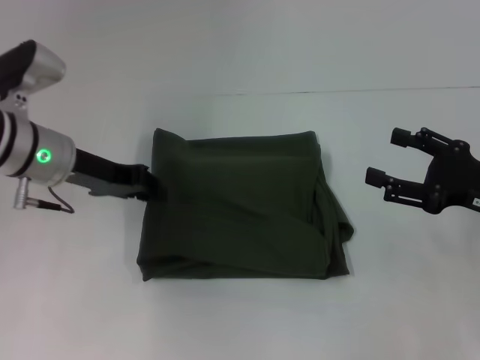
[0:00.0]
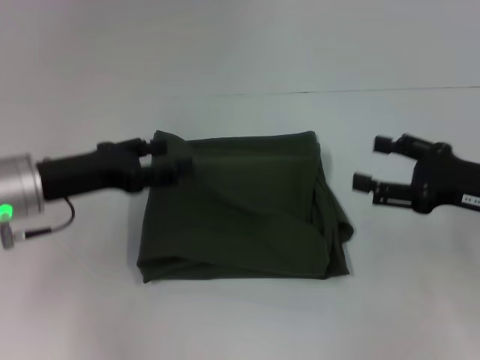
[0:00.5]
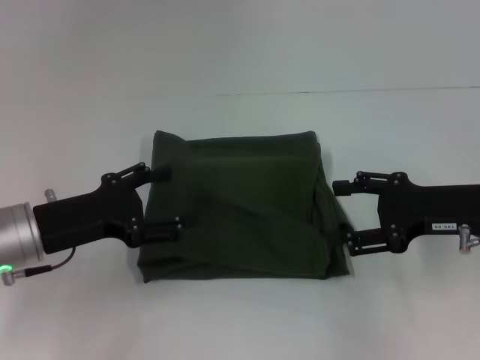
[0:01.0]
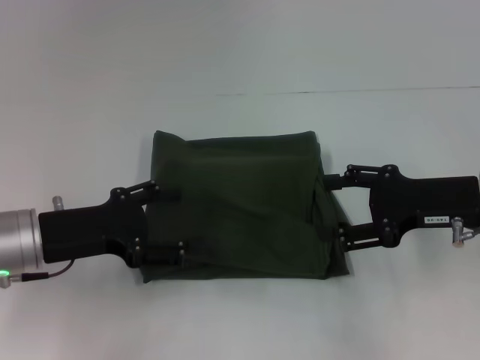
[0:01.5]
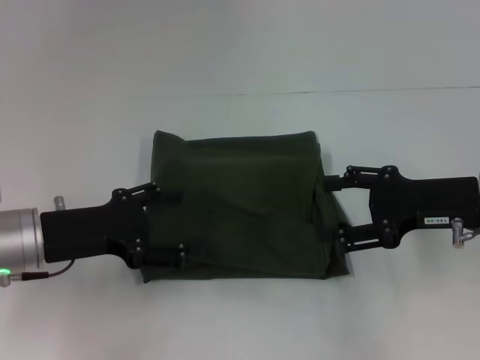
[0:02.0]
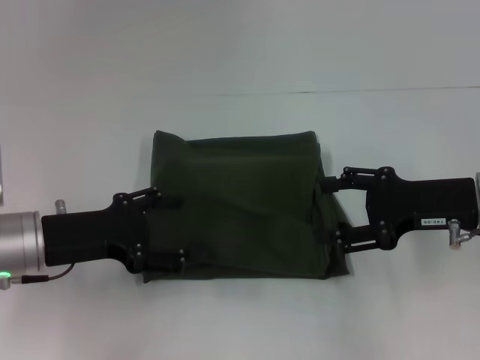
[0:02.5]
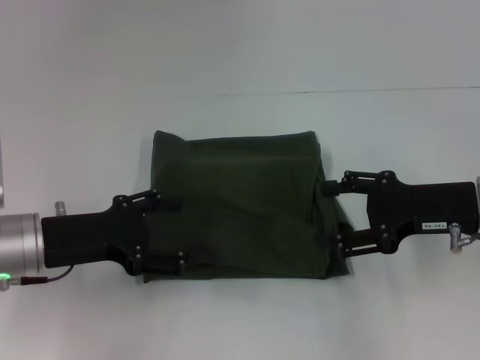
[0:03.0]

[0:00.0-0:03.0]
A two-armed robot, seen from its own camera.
0:00.0 to 0:01.5: The right gripper changes place by approximately 5 cm, while the left gripper goes about 10 cm backward, and opens up.
0:01.5 to 0:03.0: Both grippers stay about where they are.

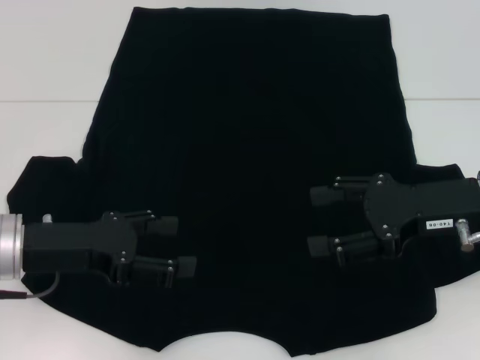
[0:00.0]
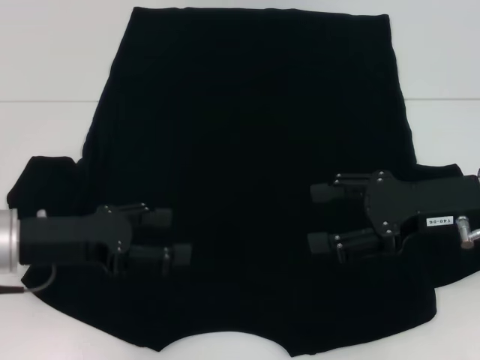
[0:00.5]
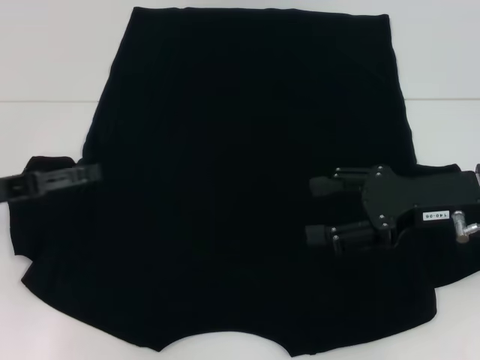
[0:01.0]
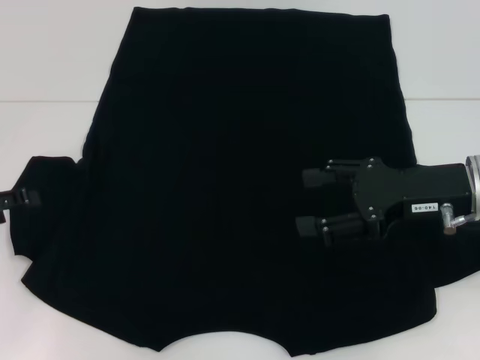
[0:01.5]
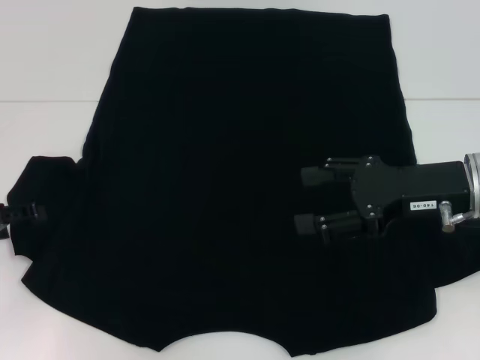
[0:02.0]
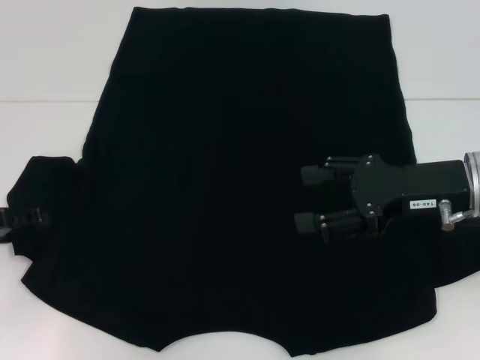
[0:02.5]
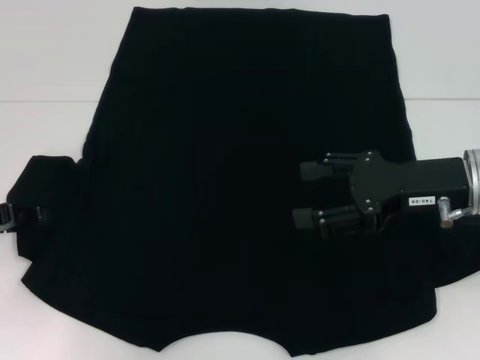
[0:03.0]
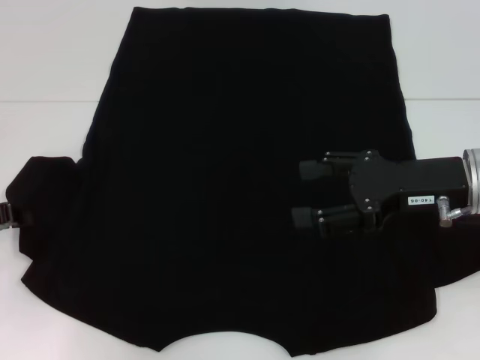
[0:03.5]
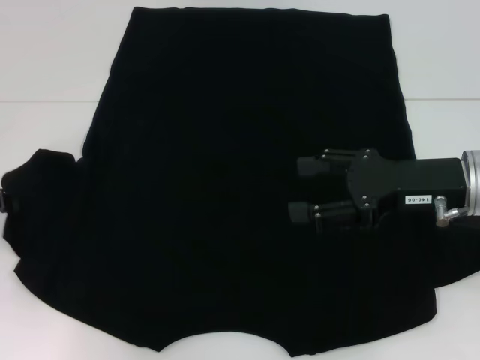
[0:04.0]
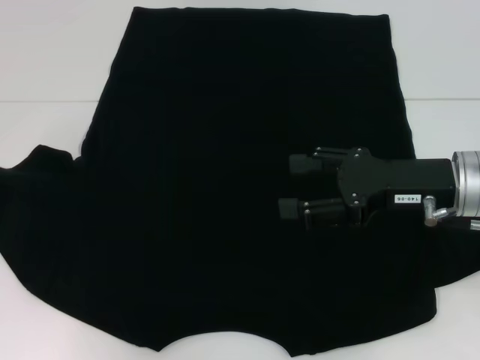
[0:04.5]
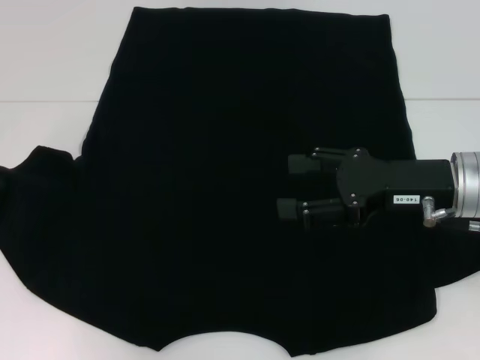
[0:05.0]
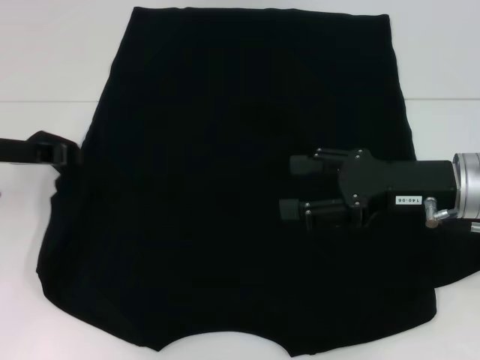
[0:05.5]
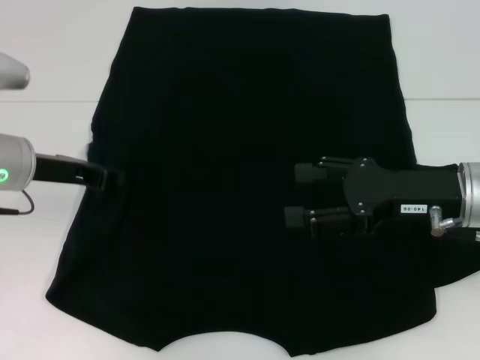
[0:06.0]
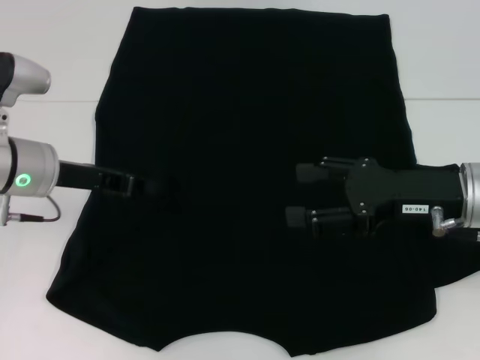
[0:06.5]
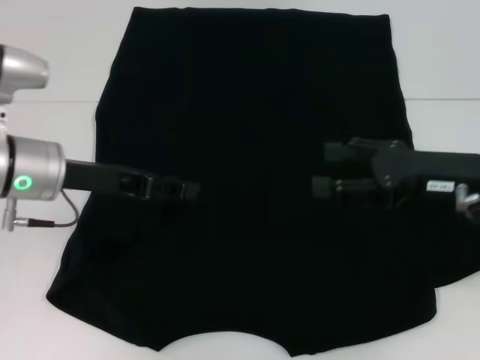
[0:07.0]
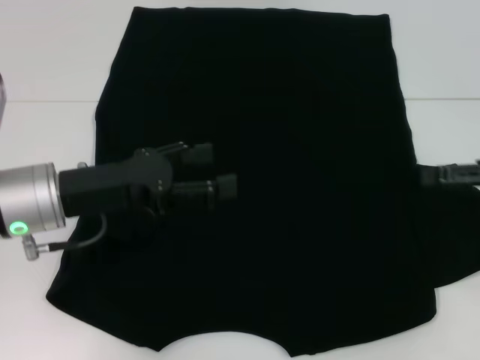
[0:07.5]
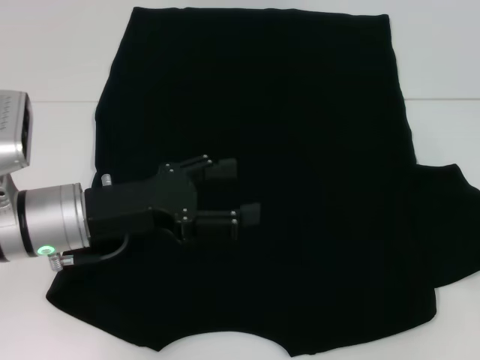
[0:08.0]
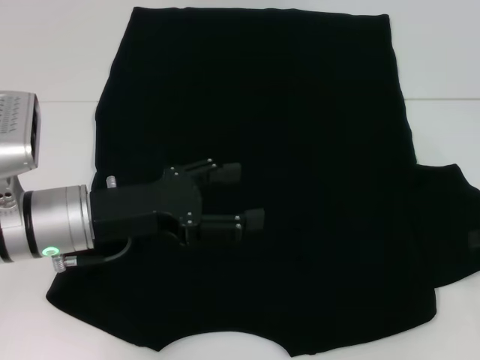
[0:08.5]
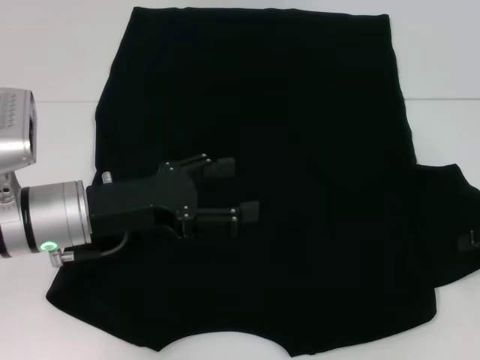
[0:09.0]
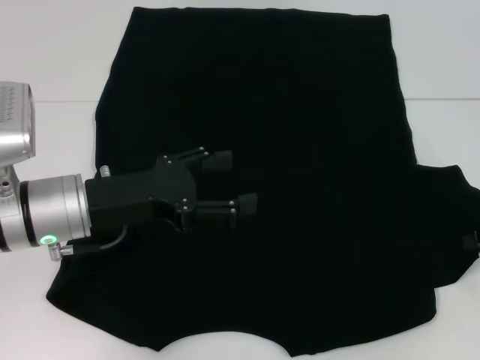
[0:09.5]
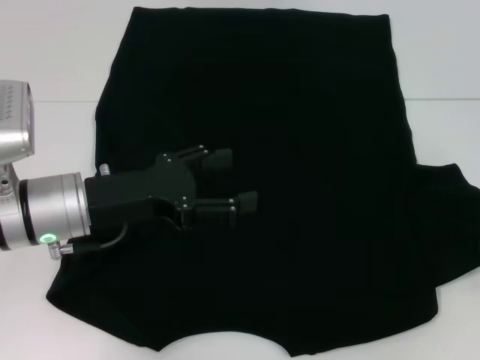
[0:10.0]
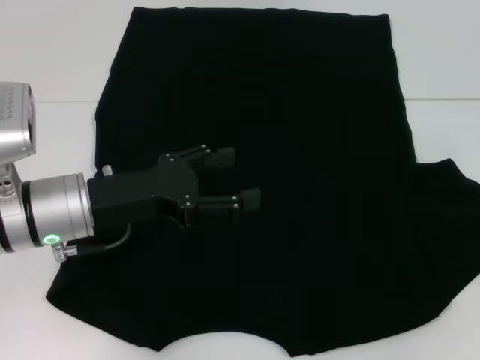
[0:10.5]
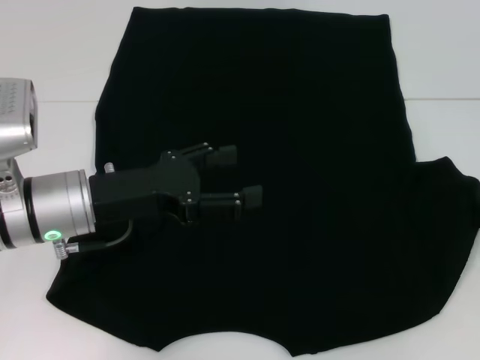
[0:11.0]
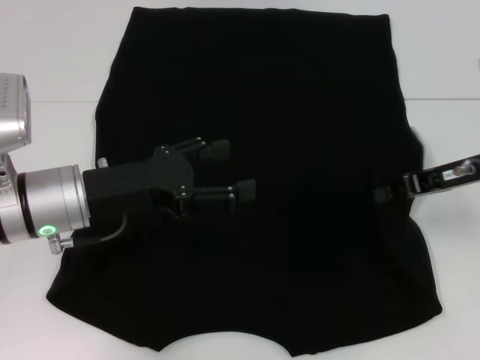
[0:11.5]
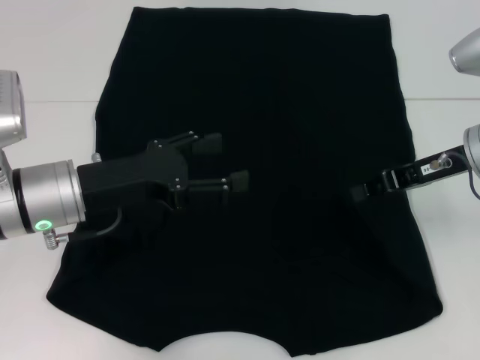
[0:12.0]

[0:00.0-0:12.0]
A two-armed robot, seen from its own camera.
Step, 0:00.0 to 0:06.0: Fold the bottom left sleeve with your left hand.
0:00.0 to 0:02.0: The left gripper shifts about 10 cm to the left.
0:02.0 to 0:04.0: The left gripper closes up.
0:04.0 to 0:06.0: The left gripper goes some 10 cm to the right.
0:06.0 to 0:08.0: The right gripper travels to the right by roughly 15 cm; the left gripper travels backward and to the right by about 10 cm, and opens.
0:10.0 to 0:12.0: The right gripper travels to the left and forward by roughly 15 cm.

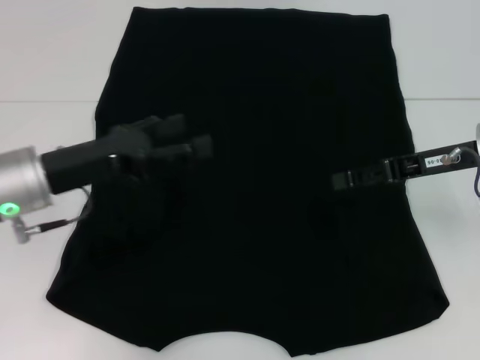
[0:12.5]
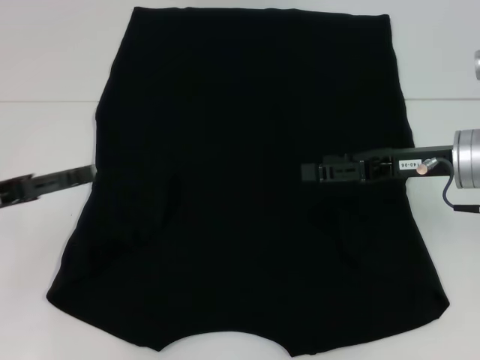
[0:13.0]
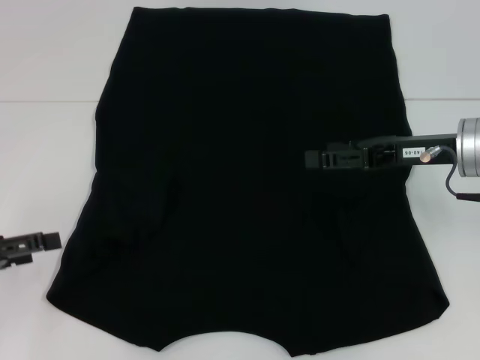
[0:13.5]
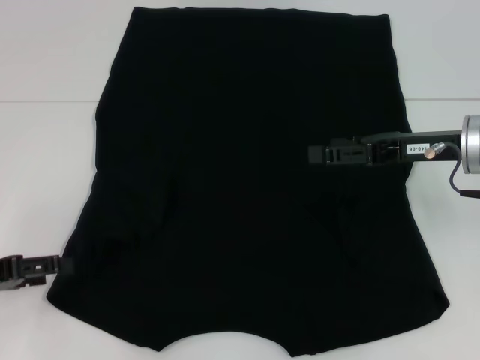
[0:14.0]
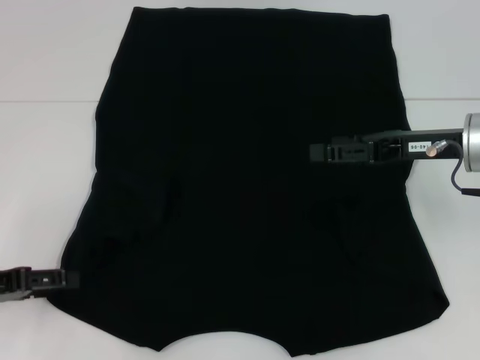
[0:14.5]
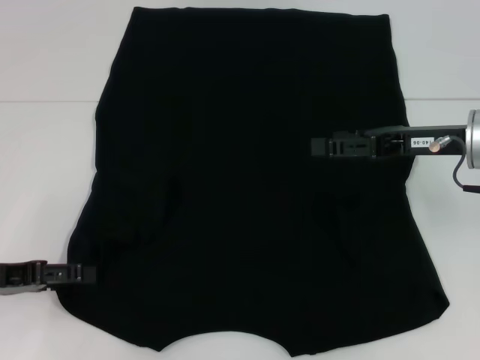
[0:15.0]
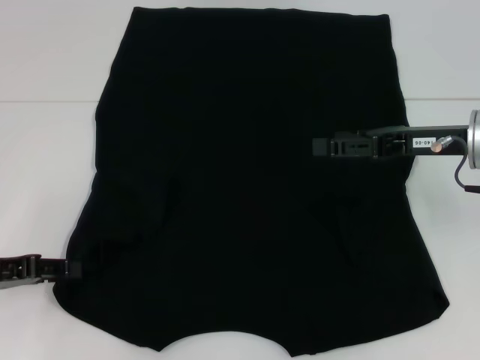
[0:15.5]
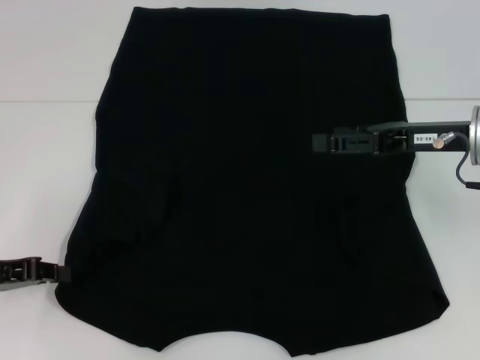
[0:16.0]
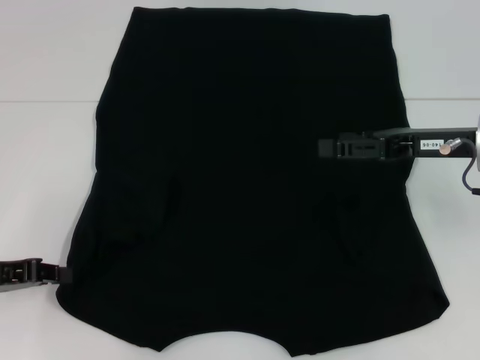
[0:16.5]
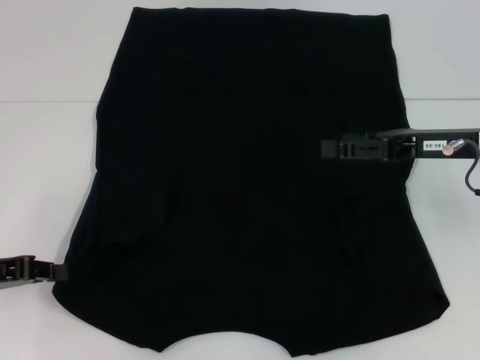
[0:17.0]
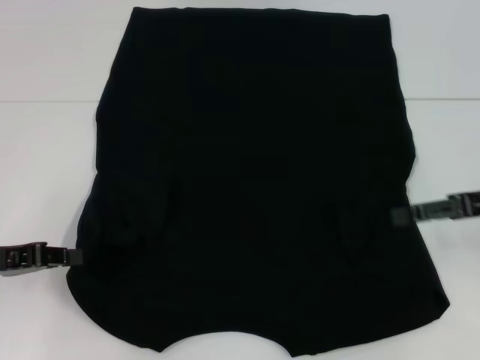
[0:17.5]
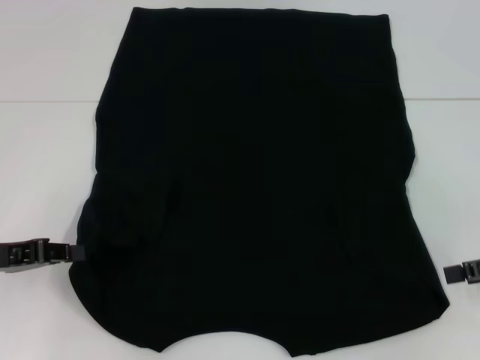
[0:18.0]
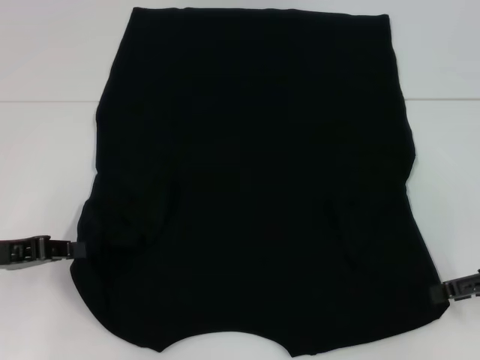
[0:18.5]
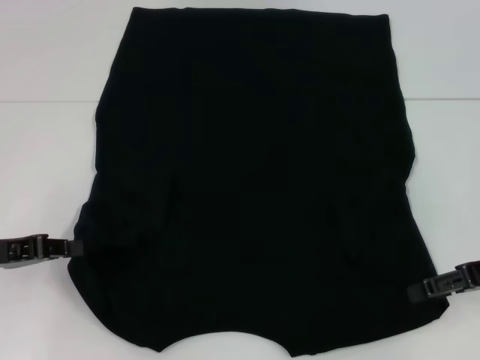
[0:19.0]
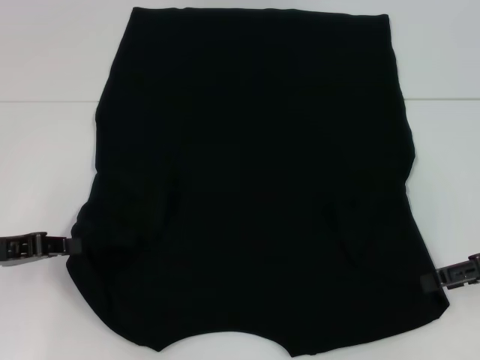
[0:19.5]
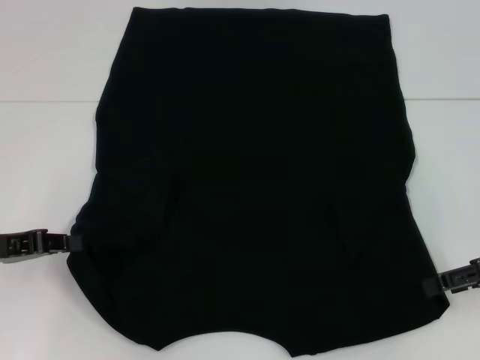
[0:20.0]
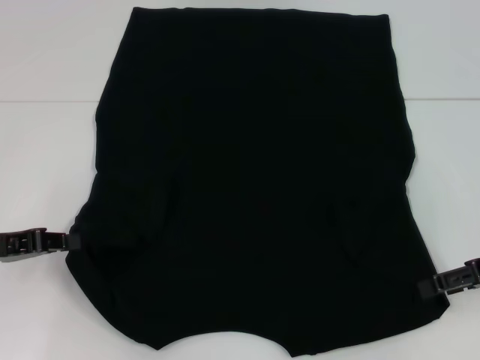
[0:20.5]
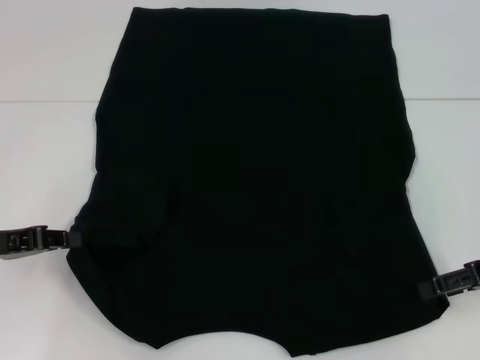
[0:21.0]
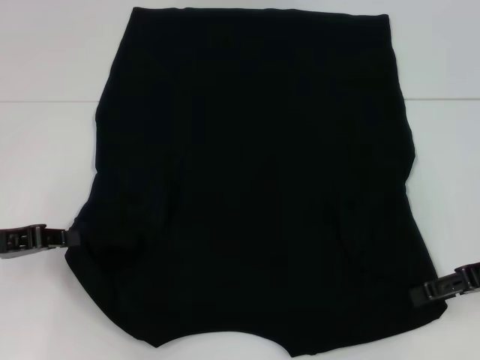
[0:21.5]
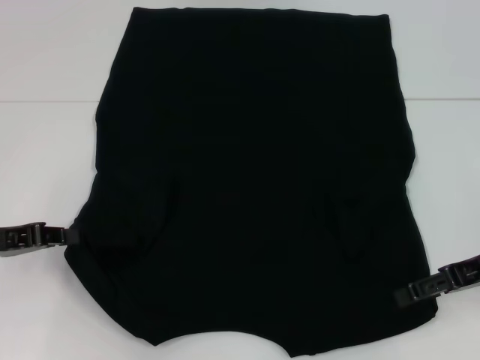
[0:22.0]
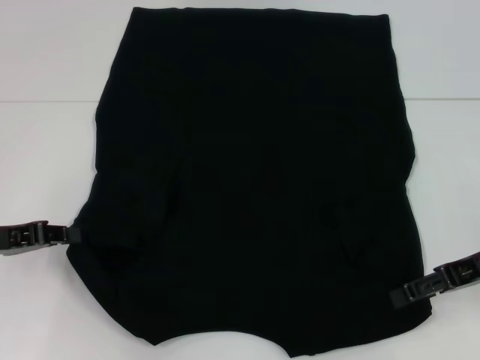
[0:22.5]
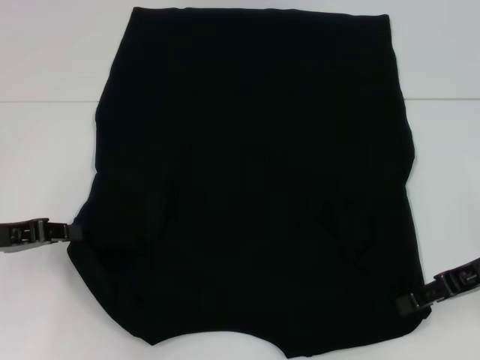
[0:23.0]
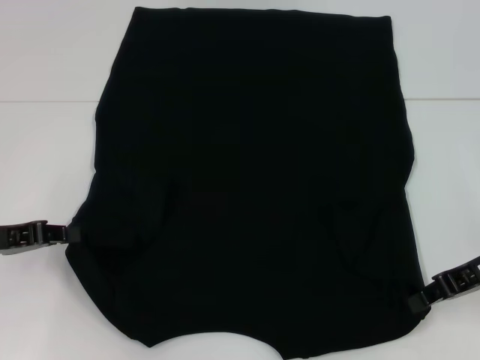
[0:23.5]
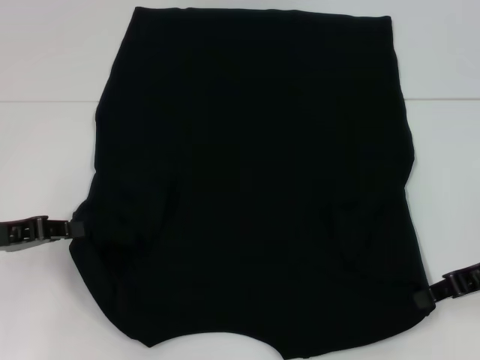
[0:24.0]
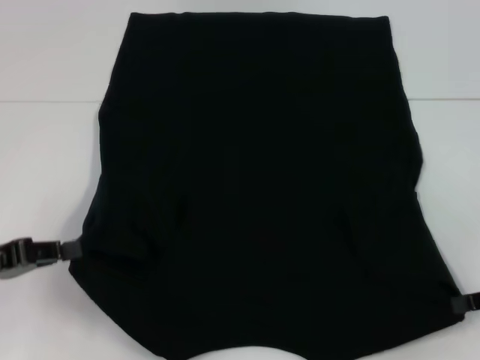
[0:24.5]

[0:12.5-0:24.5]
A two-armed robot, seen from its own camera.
Step, 0:12.5 to 0:15.0: Grab the bottom left corner with your left hand.
Step, 0:15.5 to 0:22.5: Grab the bottom right corner with your right hand.
0:12.5 to 0:14.5: The left gripper goes roughly 15 cm to the left and backward; the right gripper opens.
0:14.5 to 0:16.5: The left gripper closes.
0:16.5 to 0:18.5: The right gripper goes about 10 cm to the right and backward.
0:18.5 to 0:22.5: The grippers stay close to where they were, moving slightly.
0:22.5 to 0:24.5: The right gripper goes about 5 cm to the right, and closes up.
